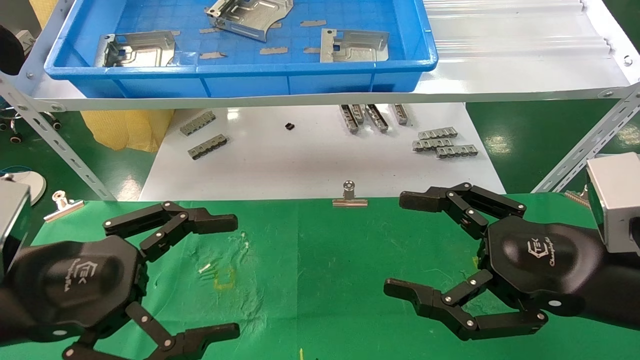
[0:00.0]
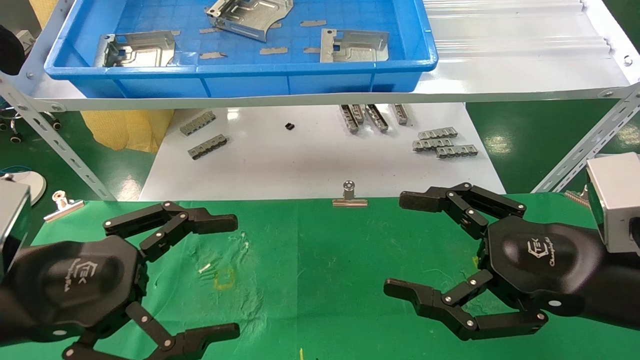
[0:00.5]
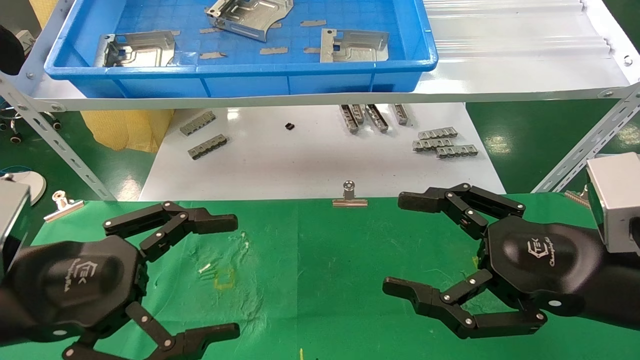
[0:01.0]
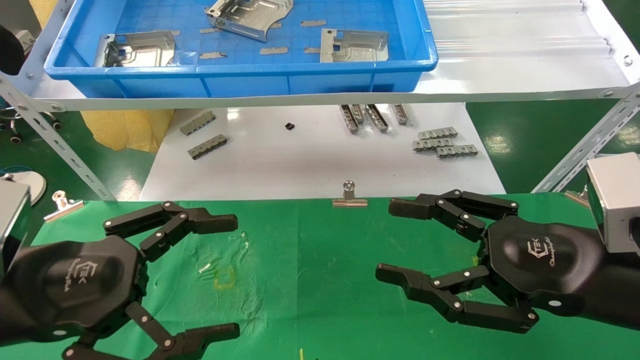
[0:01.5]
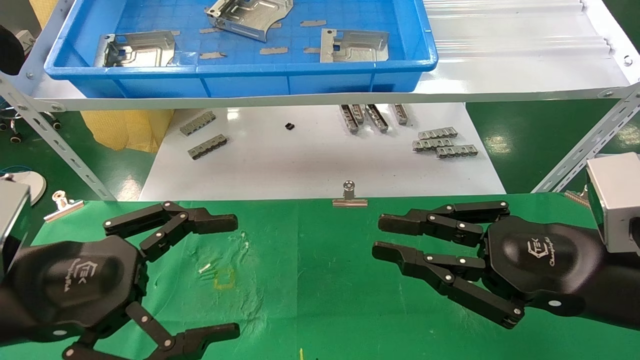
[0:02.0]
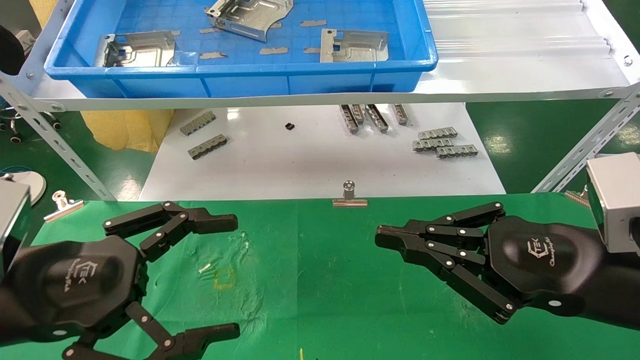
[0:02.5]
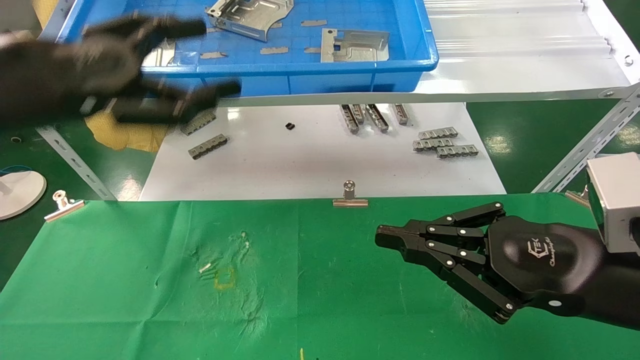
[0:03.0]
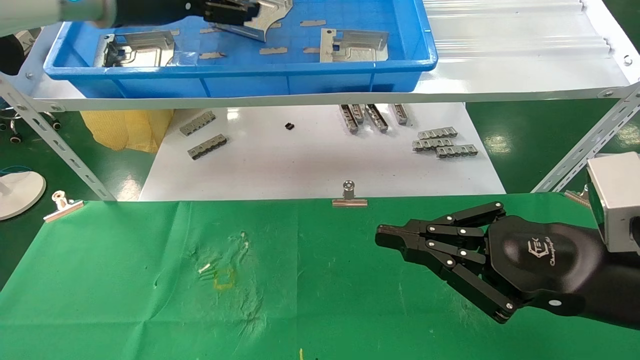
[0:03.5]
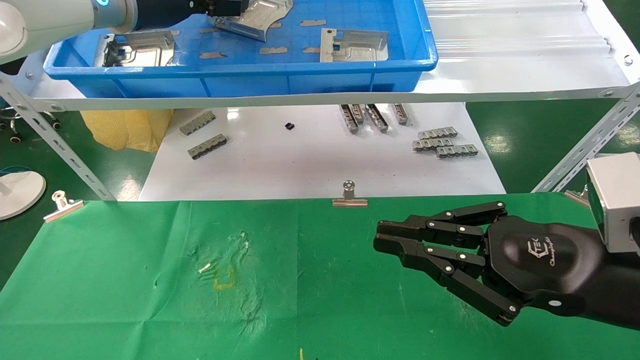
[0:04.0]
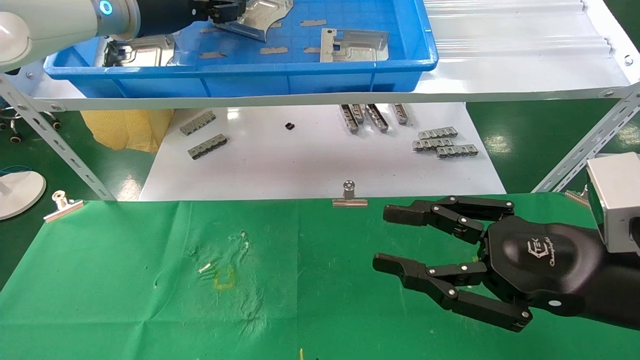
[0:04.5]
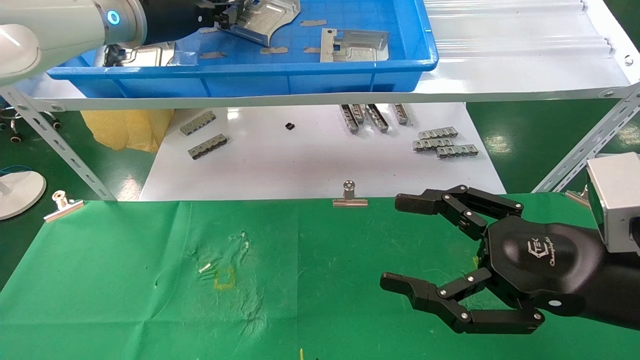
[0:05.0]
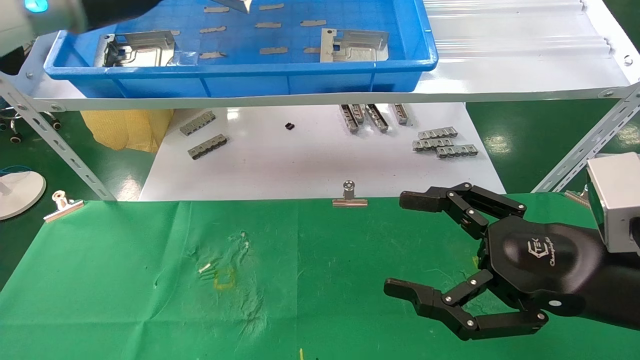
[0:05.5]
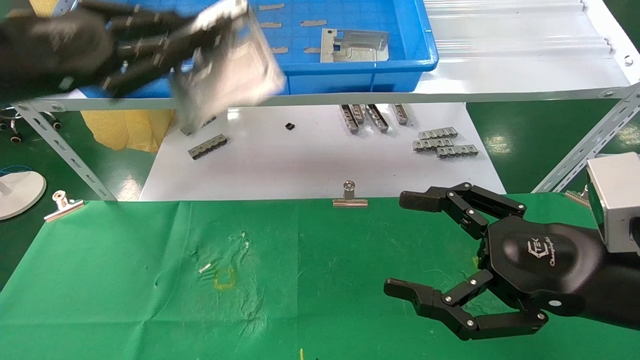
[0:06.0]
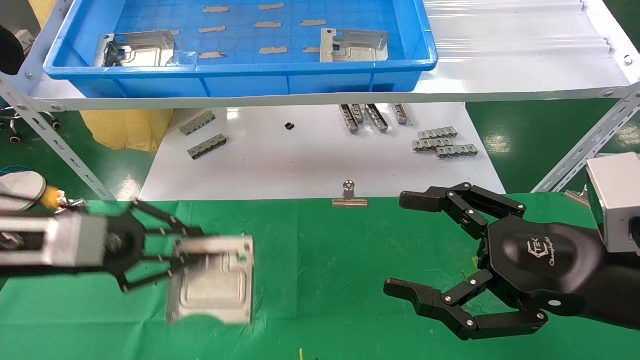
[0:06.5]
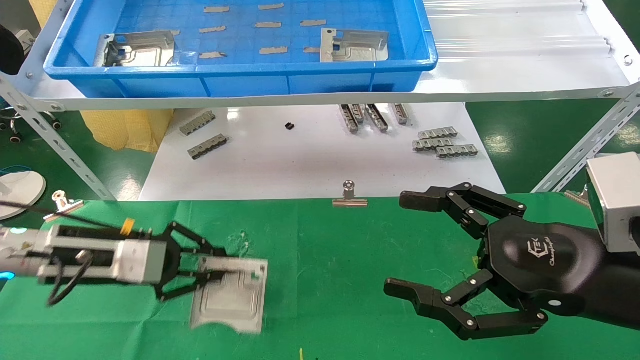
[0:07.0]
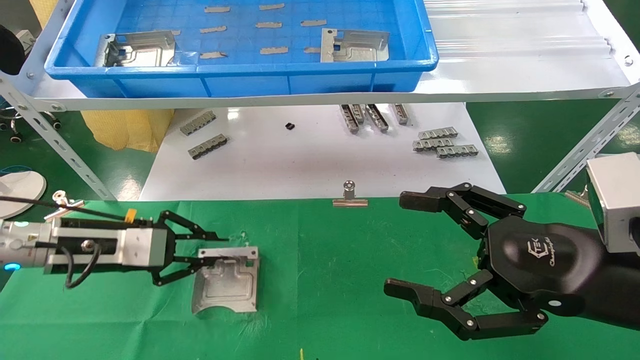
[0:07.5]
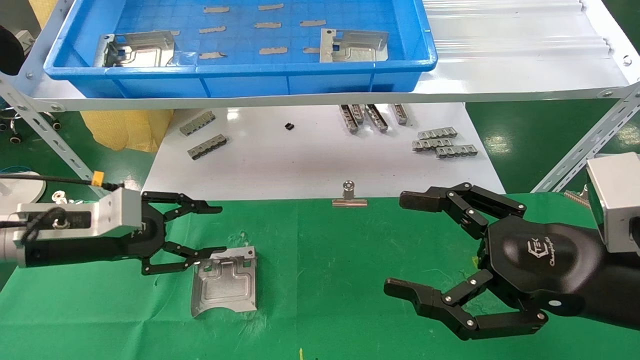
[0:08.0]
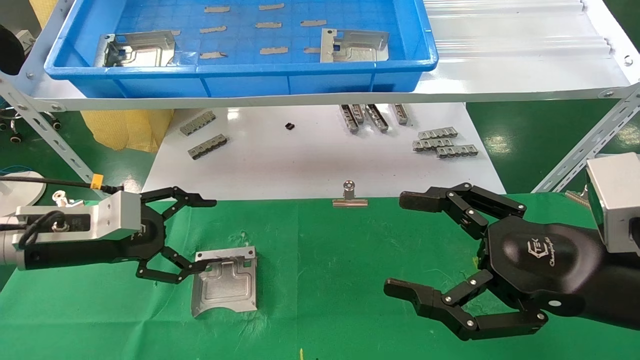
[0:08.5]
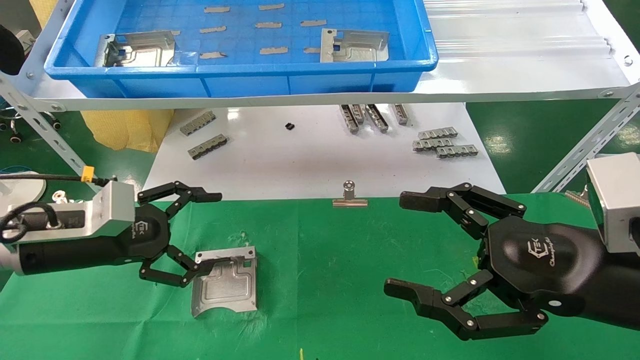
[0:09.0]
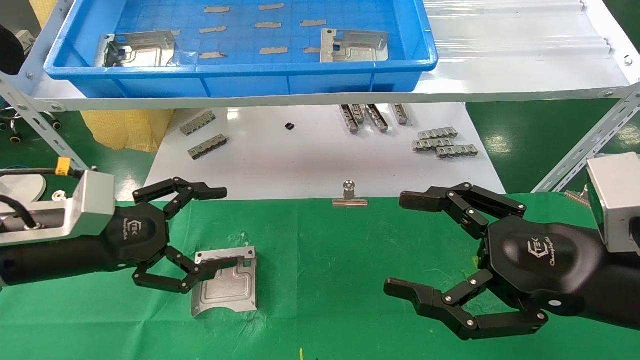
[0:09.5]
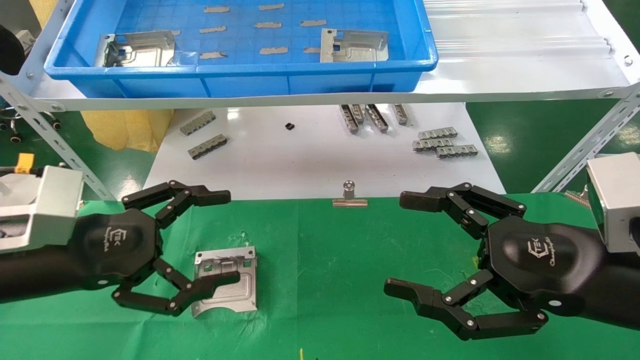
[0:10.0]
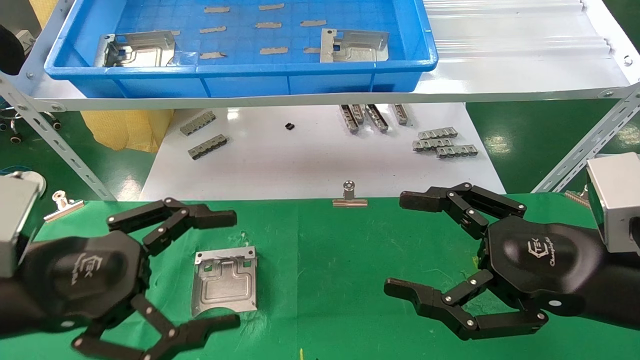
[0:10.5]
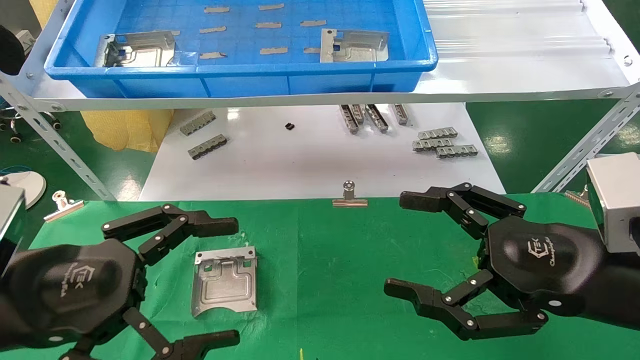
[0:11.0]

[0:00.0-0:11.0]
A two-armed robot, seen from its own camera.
Task of the whole recording: use the mechanical arm to pick up the parts and place them on the table.
Step, 0:03.0 to 0:05.0: Pick up the hard drive bracket from the feeding area.
Step, 0:05.5 to 0:08.0: Place the hard drive bracket into the box.
0:00.0 to 0:02.0: The right gripper closes its fingers.
0:02.0 to 0:03.5: The left gripper goes some 30 cm upward and forward.
0:03.5 to 0:05.5: The left gripper closes its fingers, while the right gripper opens its fingers.
0:05.5 to 0:07.5: The left gripper moves downward, about 25 cm.
0:07.5 to 0:09.0: The left gripper opens.
0:09.0 to 0:11.0: The left gripper moves backward, approximately 15 cm.
